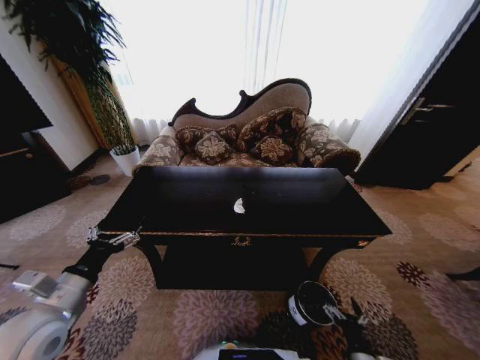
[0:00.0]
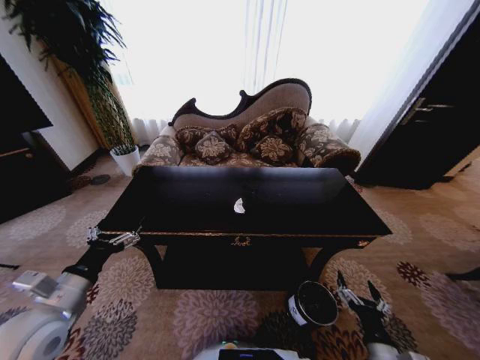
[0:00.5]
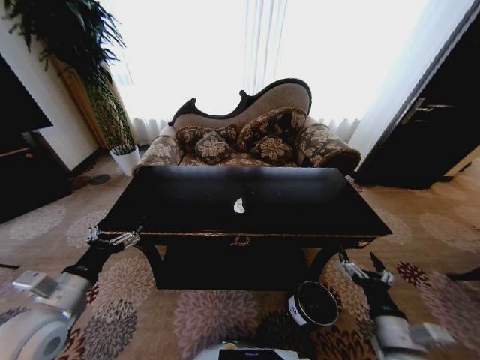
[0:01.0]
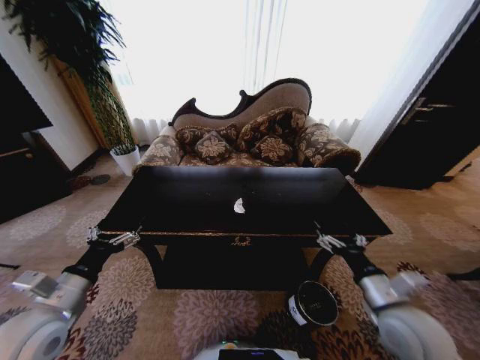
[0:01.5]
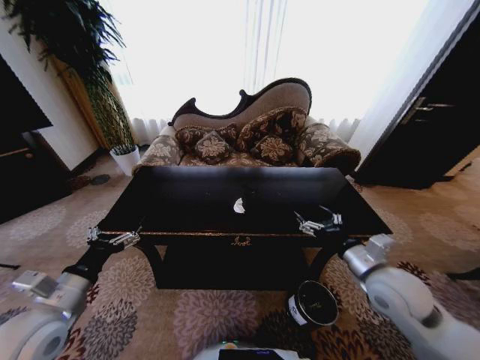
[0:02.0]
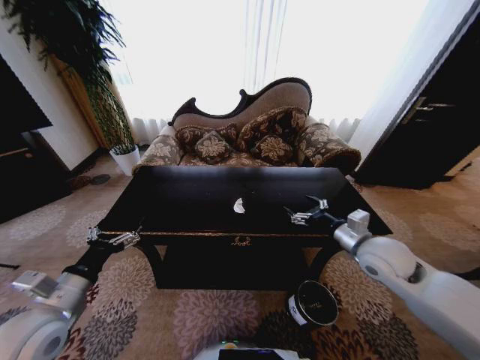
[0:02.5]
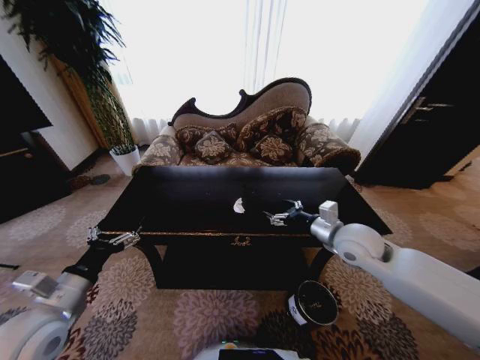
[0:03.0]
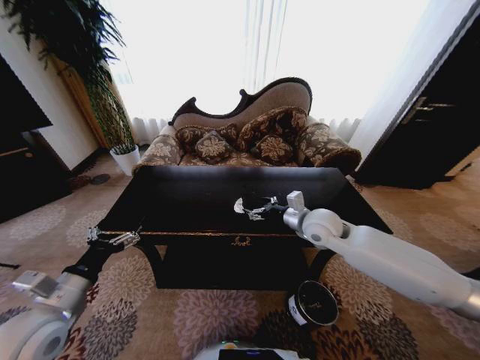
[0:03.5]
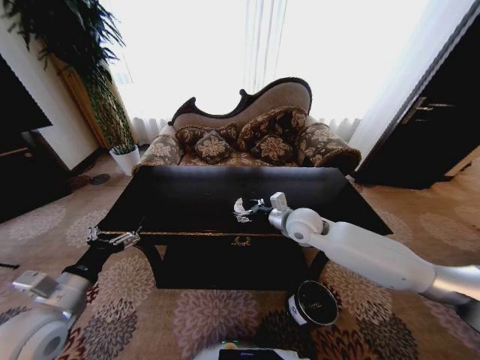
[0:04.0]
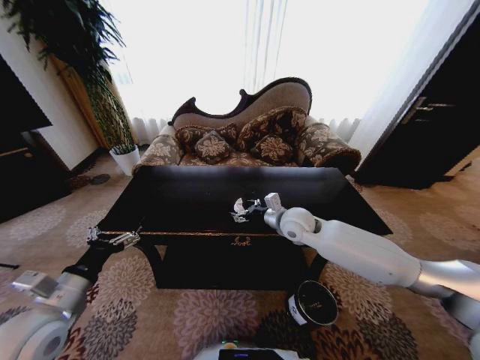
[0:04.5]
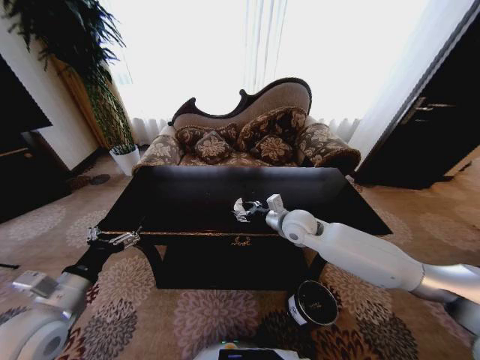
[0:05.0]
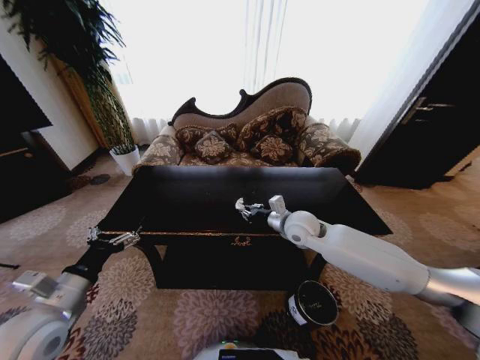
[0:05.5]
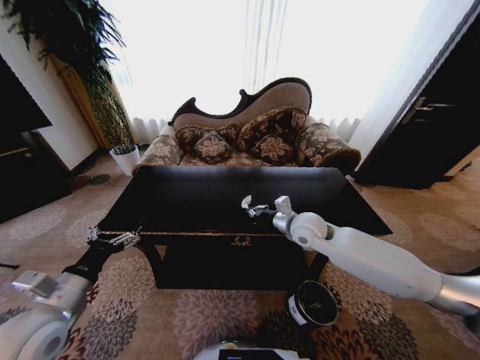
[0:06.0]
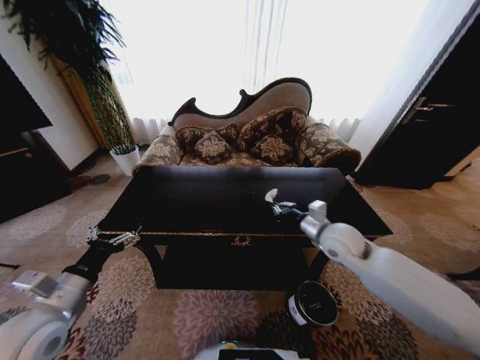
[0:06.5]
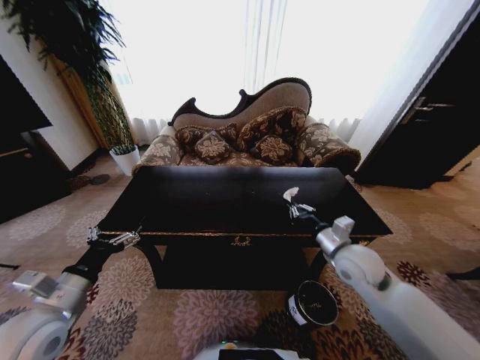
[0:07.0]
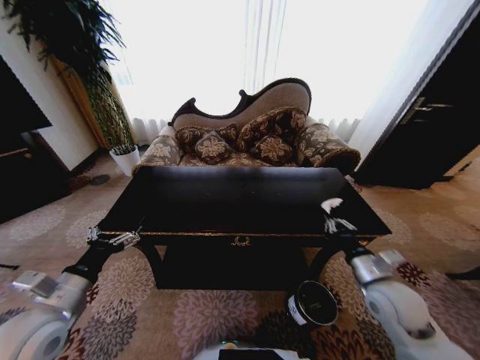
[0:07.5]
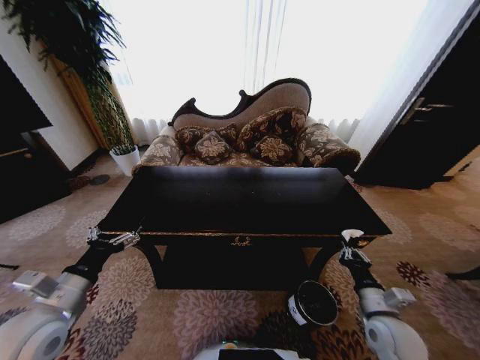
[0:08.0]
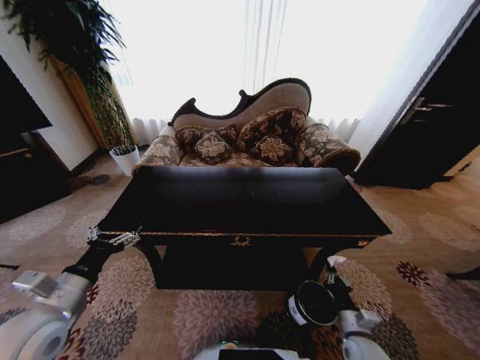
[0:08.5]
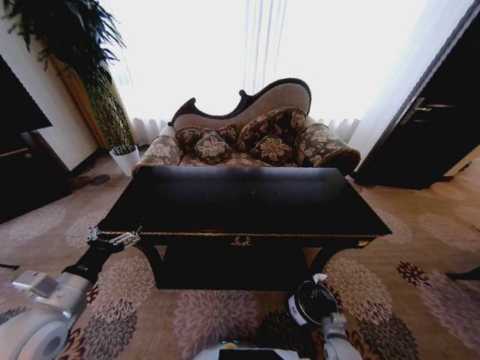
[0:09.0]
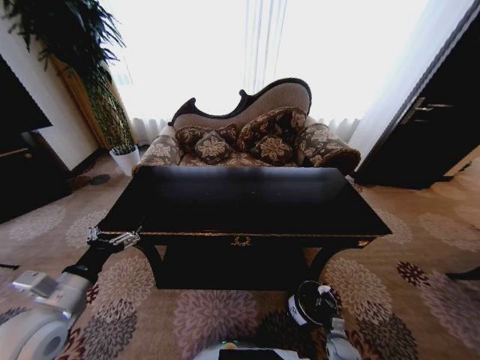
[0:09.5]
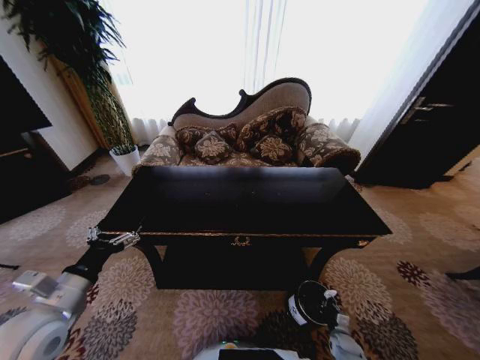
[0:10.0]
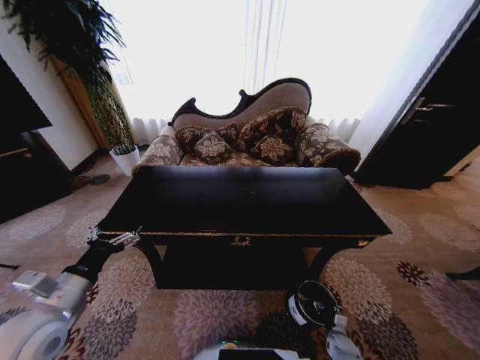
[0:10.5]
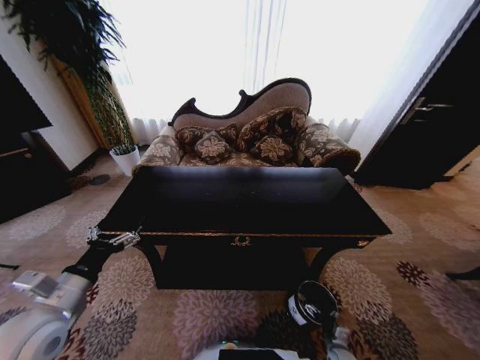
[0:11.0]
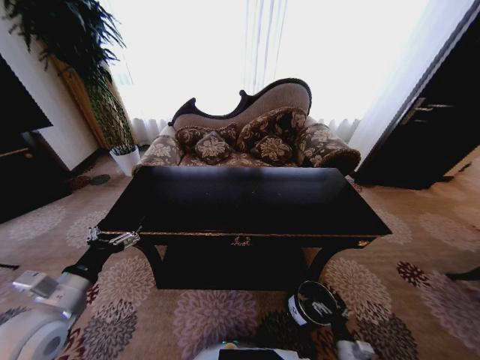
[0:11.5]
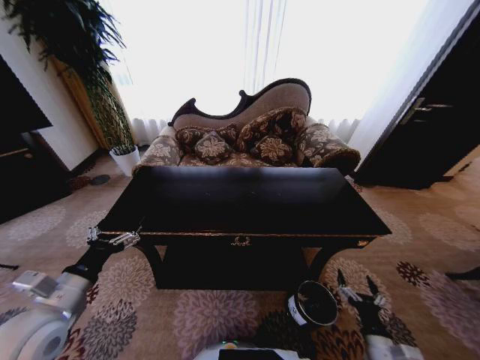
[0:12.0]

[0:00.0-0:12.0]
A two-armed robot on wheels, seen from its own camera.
Task of the whole recording: Move to the front of the table and place the trash on the table into the trash bin.
0:00.0 to 0:02.0: The right gripper goes approximately 35 cm upward and forward.
0:02.0 to 0:04.0: The right gripper goes some 20 cm forward and to the left.
0:04.0 to 0:06.0: The right gripper closes its fingers.
0:06.0 to 0:08.0: The right gripper heads backward, to the right and downward, covering roughly 30 cm.
0:08.0 to 0:10.0: The right gripper shifts roughly 30 cm downward.
0:10.0 to 0:12.0: The right gripper heads upward and backward, covering about 25 cm, and opens up.

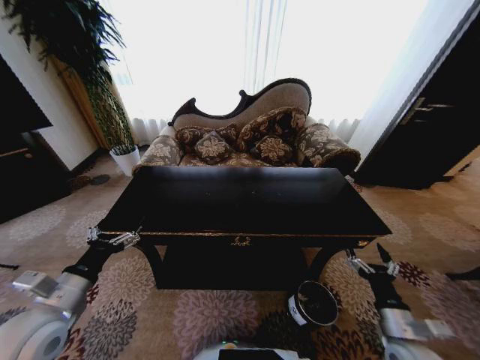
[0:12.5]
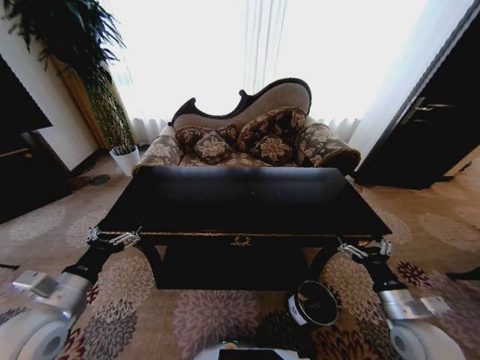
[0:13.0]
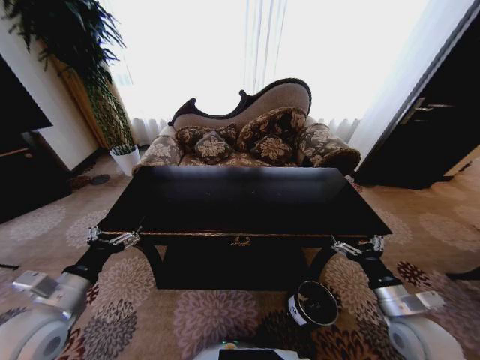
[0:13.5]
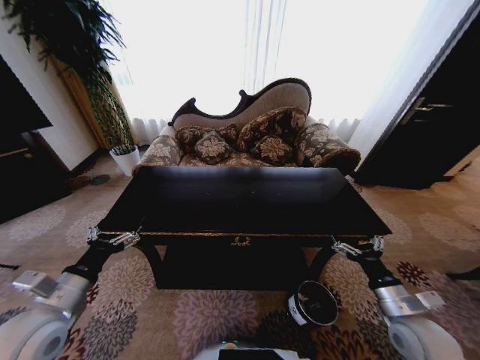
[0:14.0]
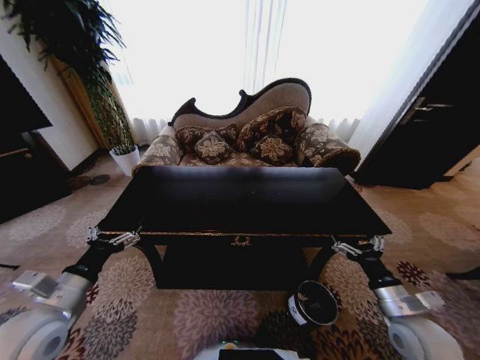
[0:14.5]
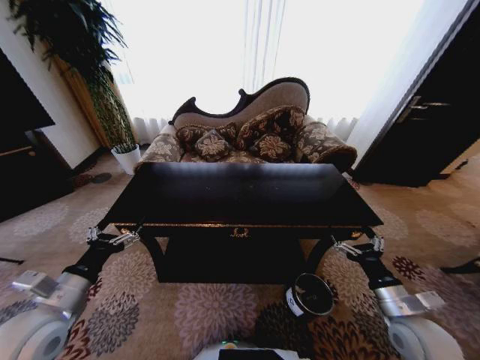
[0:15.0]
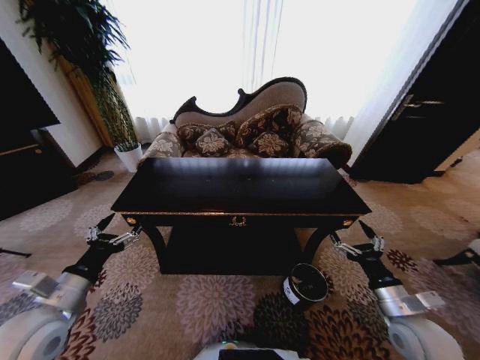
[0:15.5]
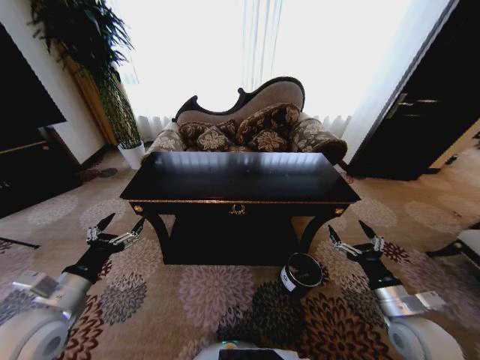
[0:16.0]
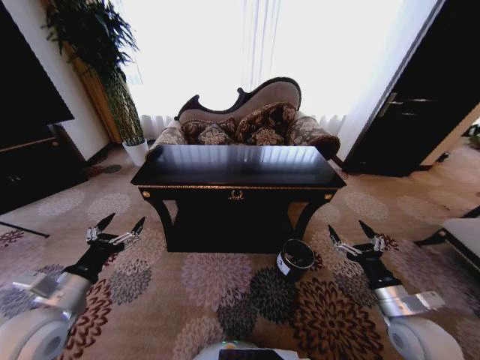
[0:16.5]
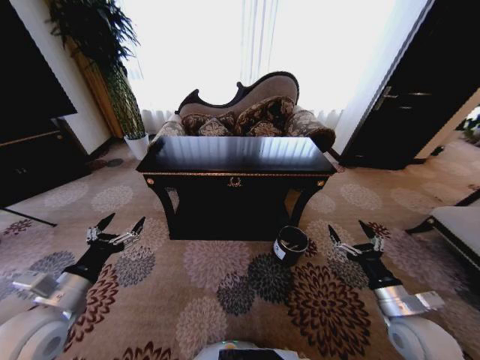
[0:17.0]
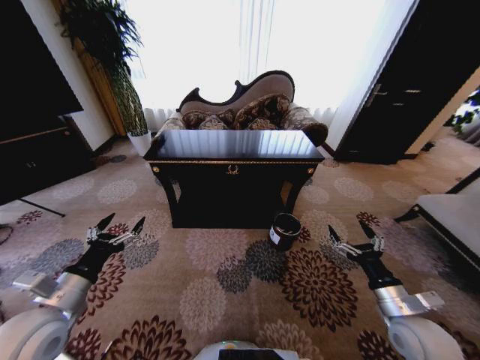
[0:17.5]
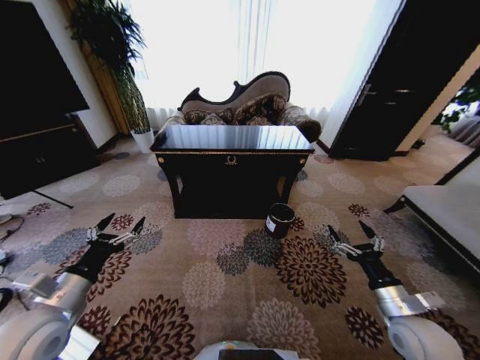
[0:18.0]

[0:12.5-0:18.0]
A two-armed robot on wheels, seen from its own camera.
Task of the whole recording: Move to the front of the table and place the trash on the table into the trash bin.
0:12.5 to 0:14.5: The right gripper shifts by some 5 cm.
